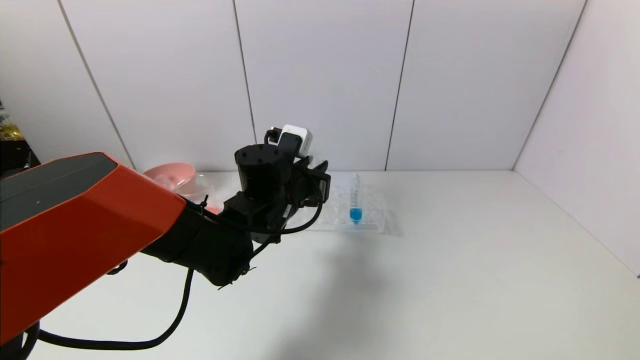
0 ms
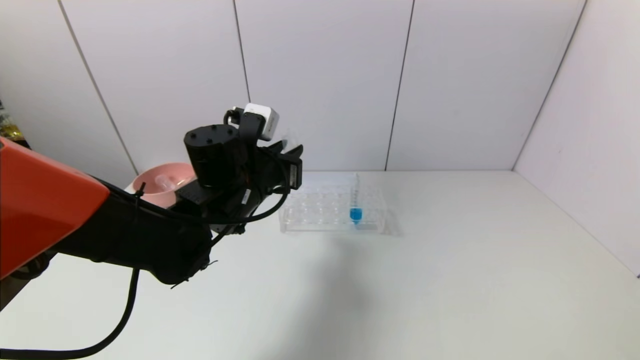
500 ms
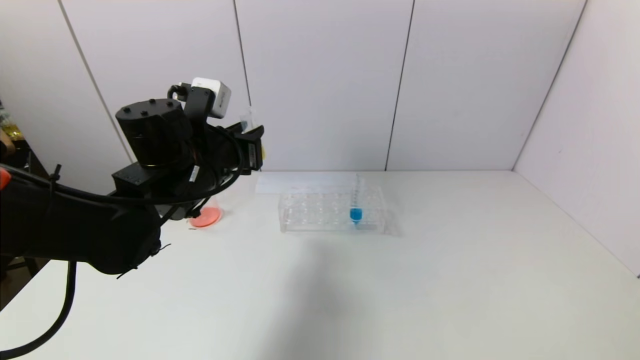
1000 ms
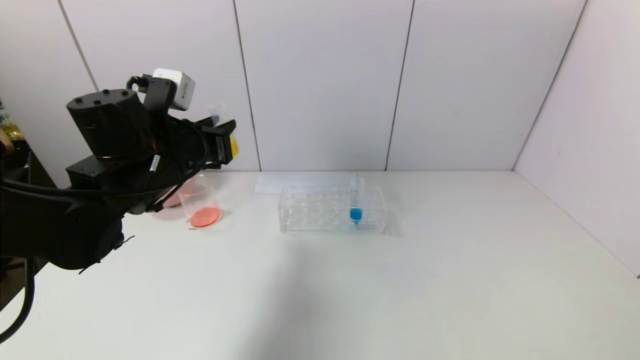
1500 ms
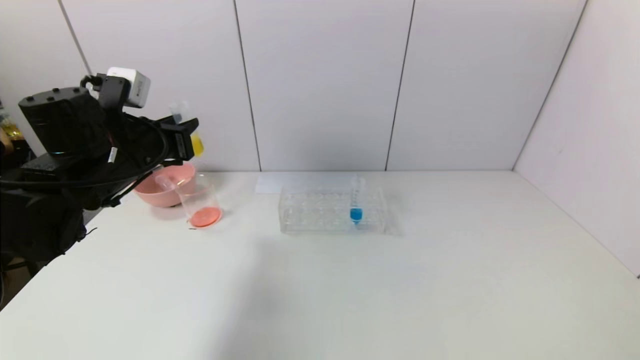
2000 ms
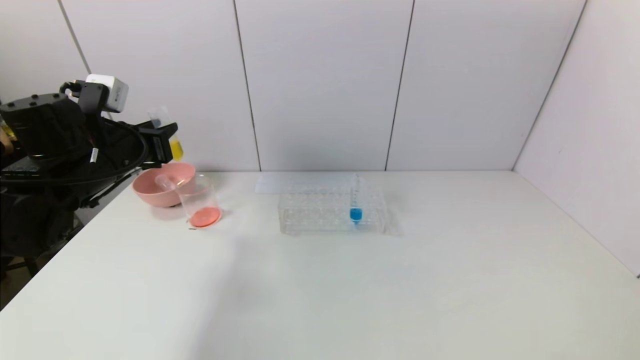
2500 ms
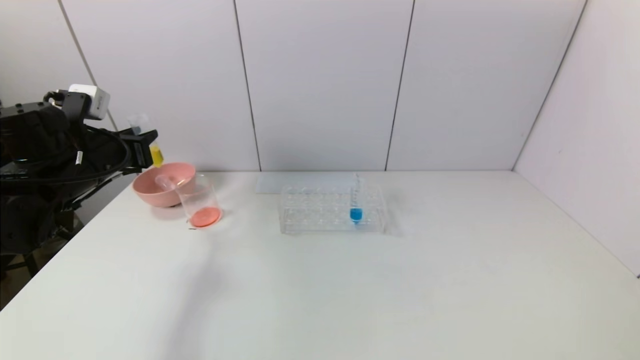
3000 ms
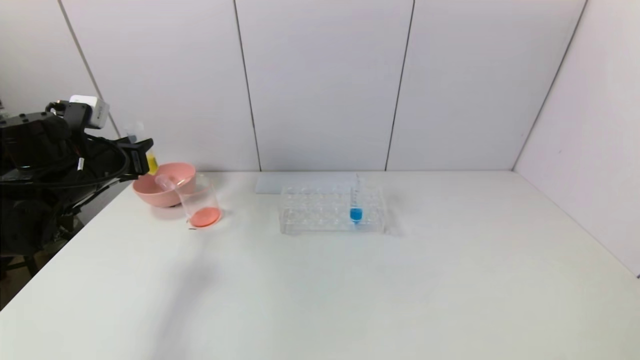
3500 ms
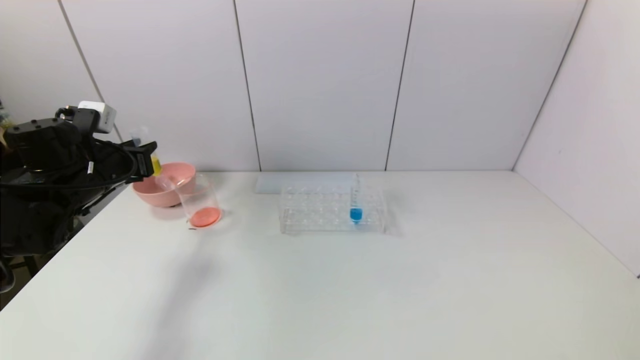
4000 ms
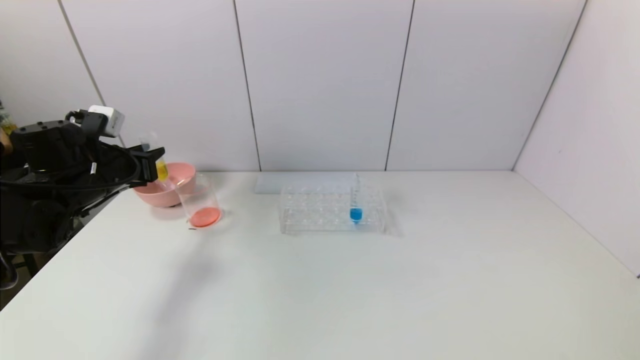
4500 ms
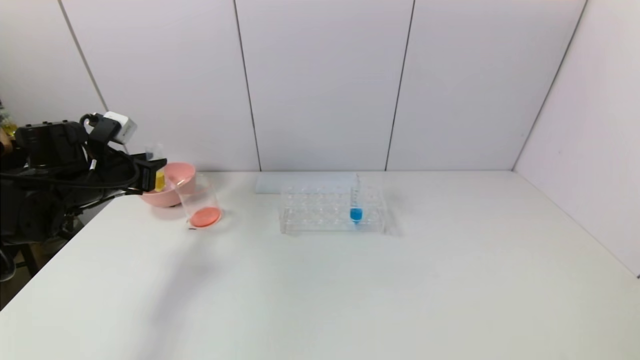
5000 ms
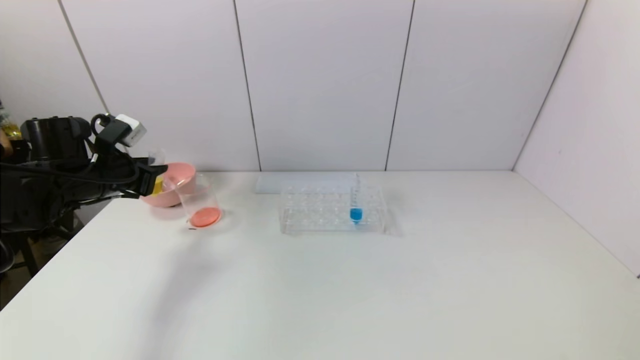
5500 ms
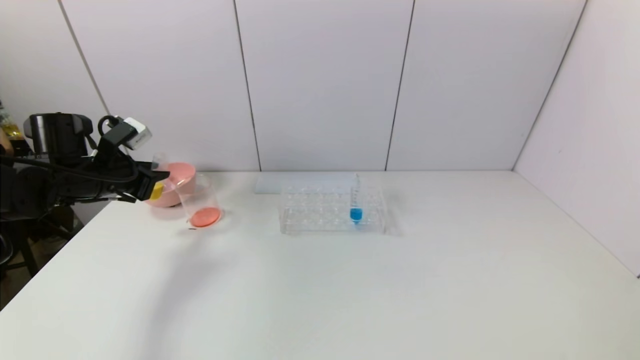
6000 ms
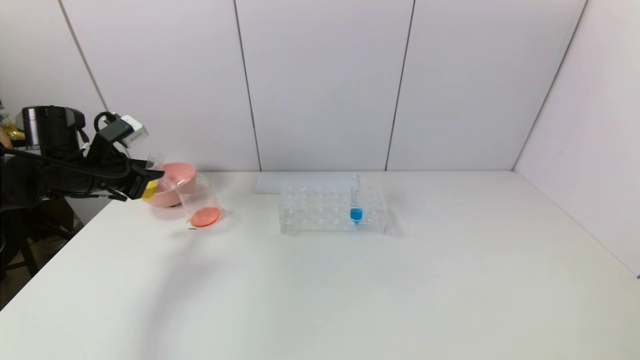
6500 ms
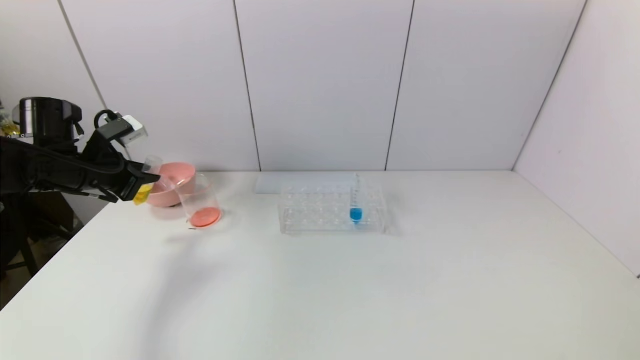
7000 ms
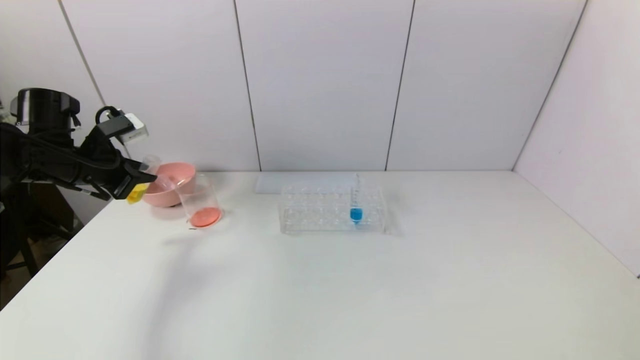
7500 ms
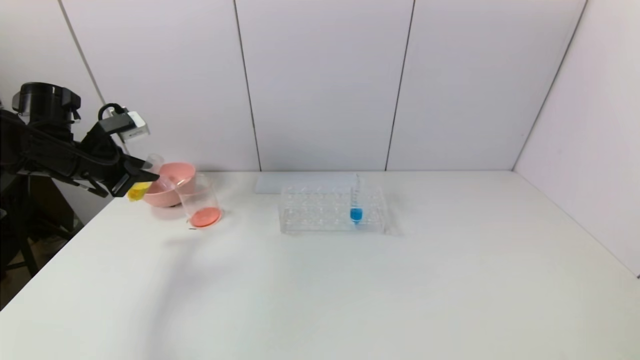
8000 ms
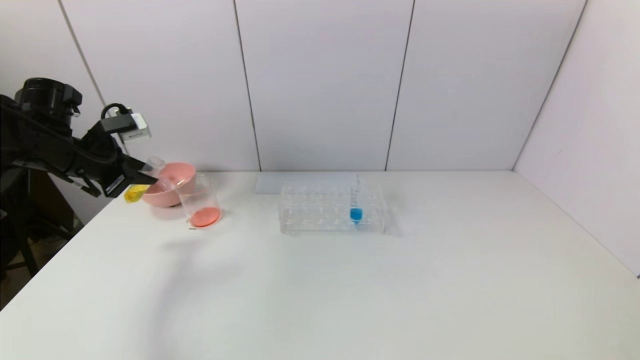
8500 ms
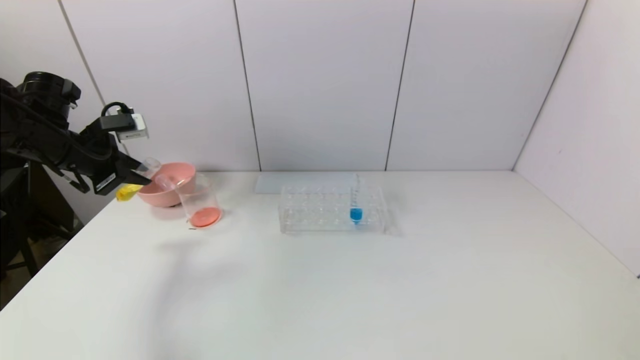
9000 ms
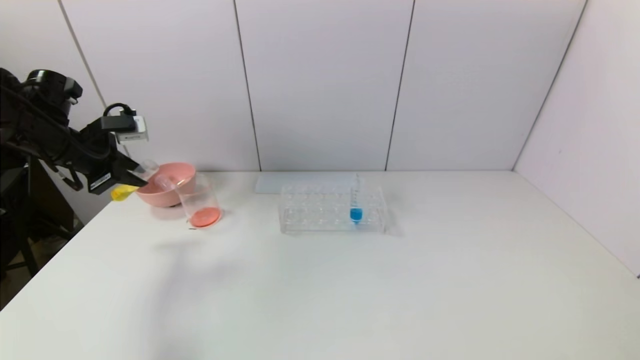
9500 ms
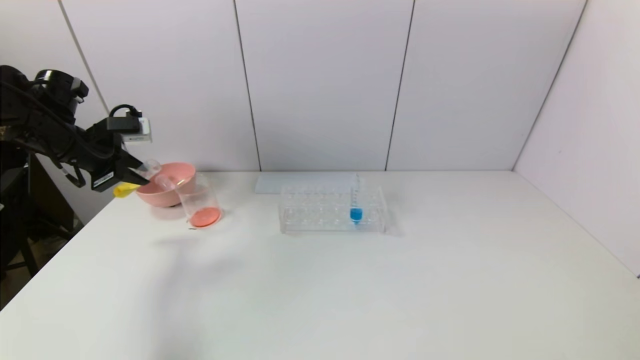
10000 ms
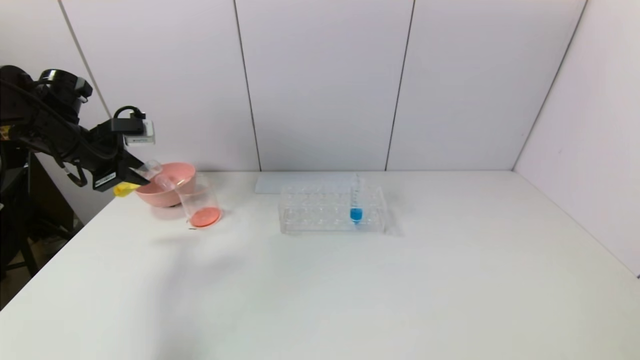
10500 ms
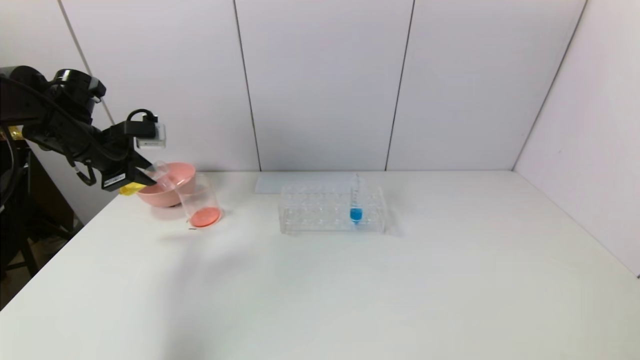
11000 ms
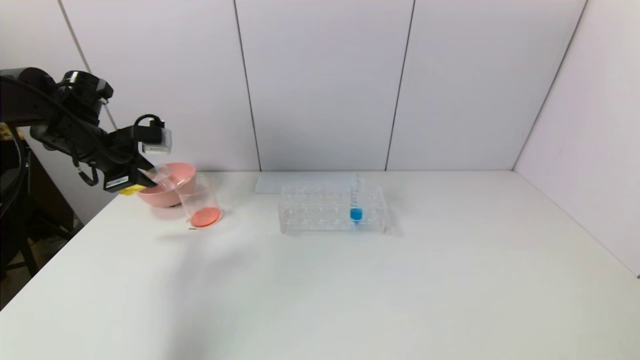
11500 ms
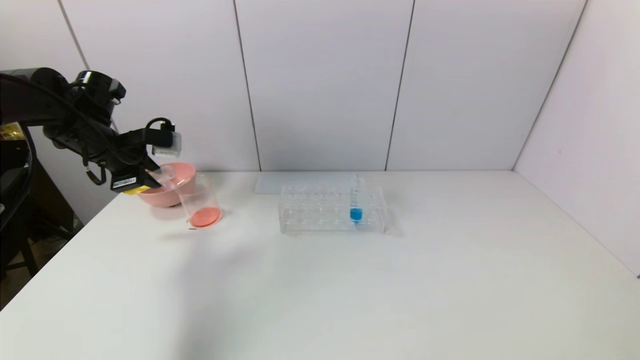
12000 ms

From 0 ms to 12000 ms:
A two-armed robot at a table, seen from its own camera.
Task of the whole recording: pick up the test tube with yellow pigment and the test tube with red pigment by grippers and pour them into the beaker.
From 0 ms to 2000 ms: The left gripper travels to the left by some 20 cm.
From 2000 ms to 4000 ms: The left gripper moves to the left, approximately 10 cm.
From 6000 ms to 8000 ms: The grippers make only small movements.
From 10000 ms to 12000 ms: The grippers move only a little.

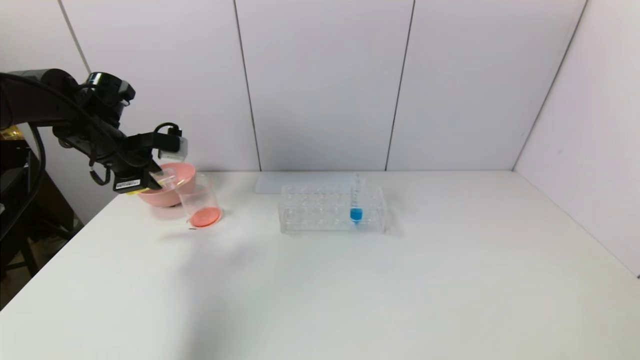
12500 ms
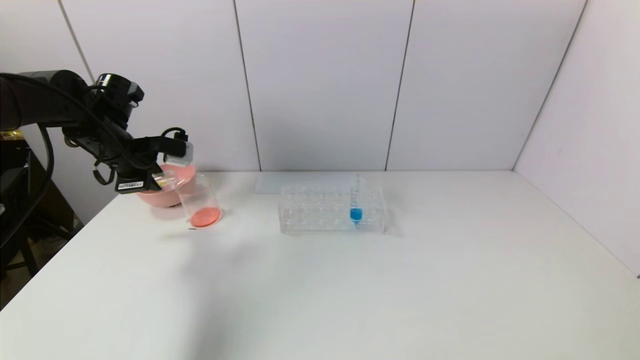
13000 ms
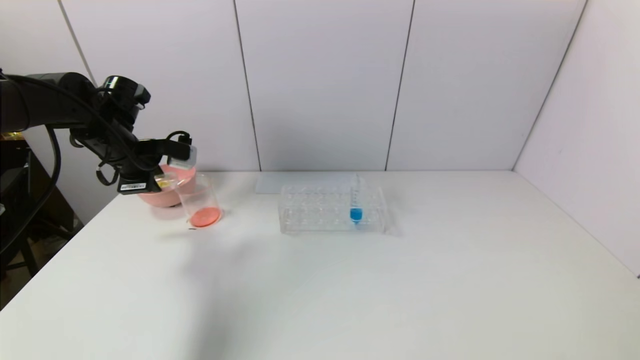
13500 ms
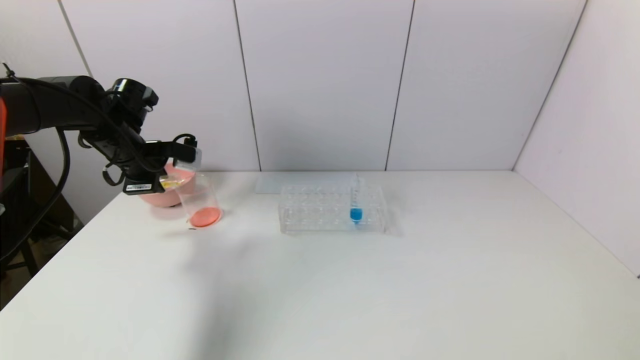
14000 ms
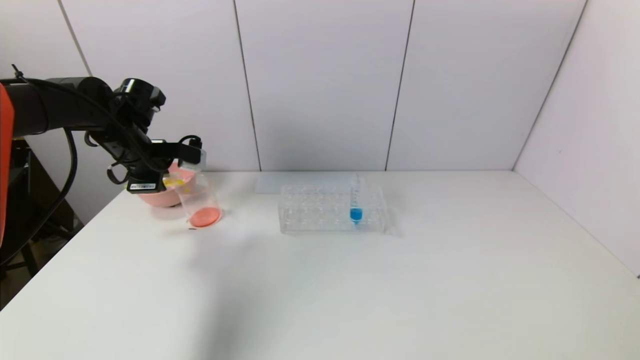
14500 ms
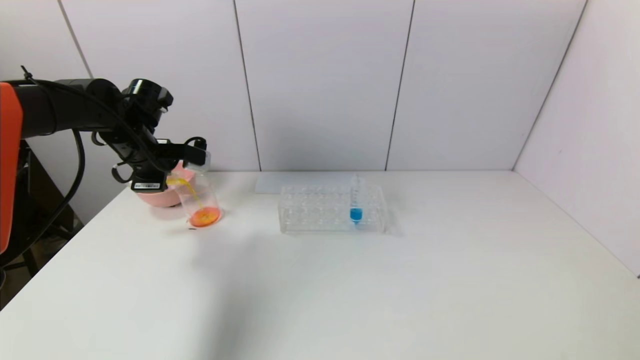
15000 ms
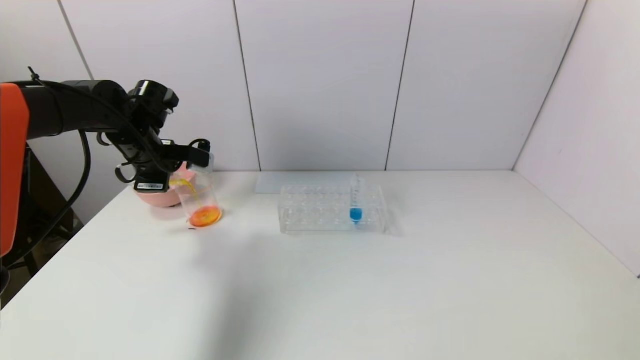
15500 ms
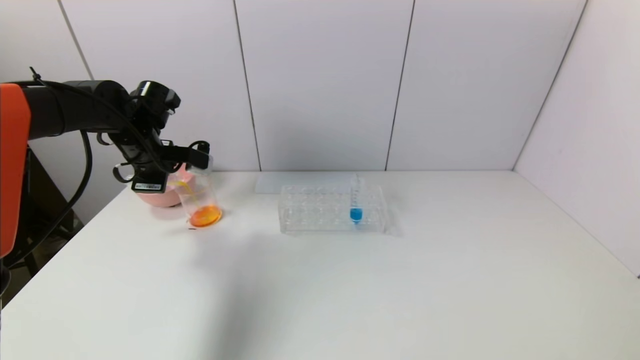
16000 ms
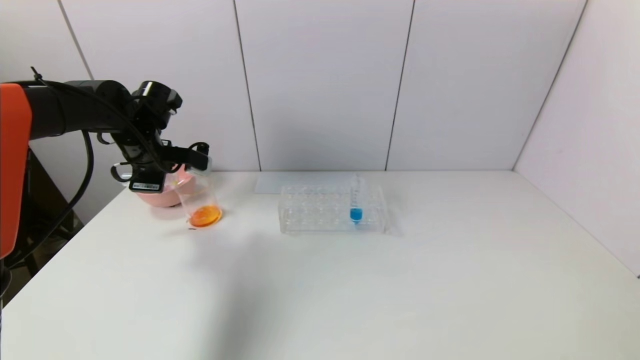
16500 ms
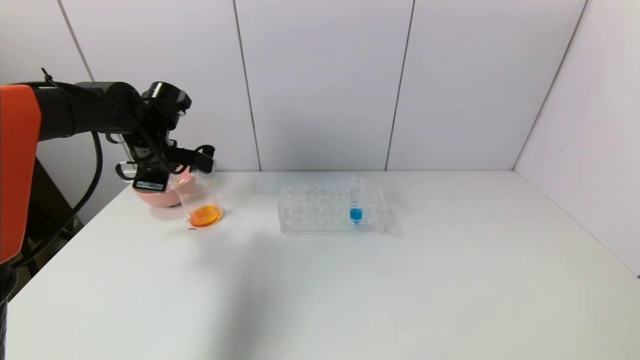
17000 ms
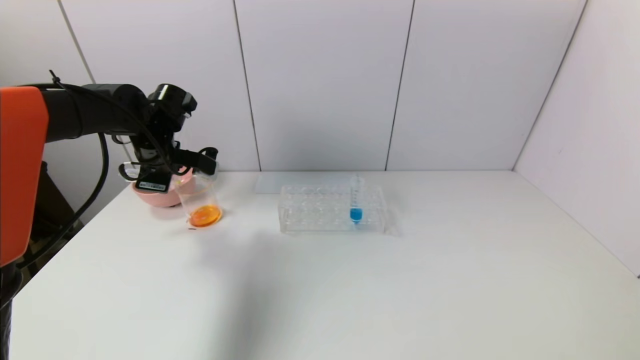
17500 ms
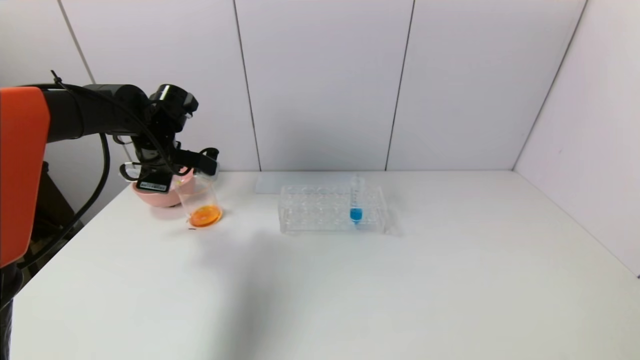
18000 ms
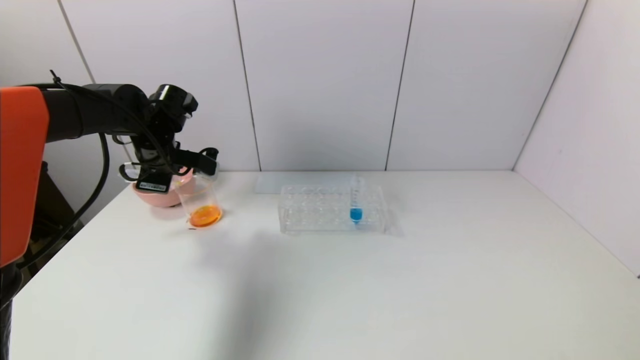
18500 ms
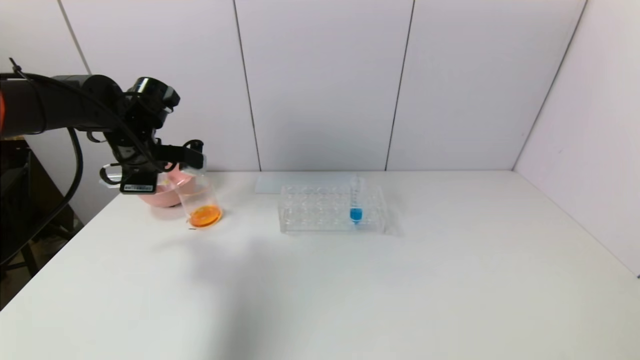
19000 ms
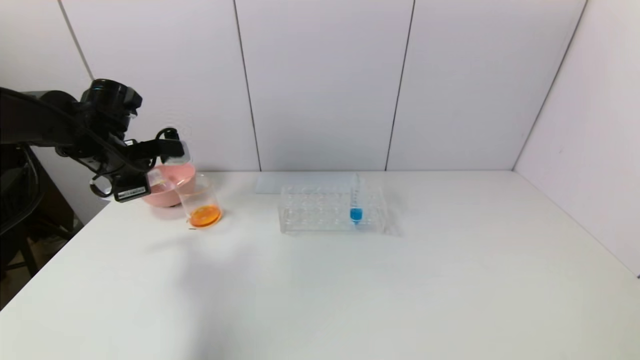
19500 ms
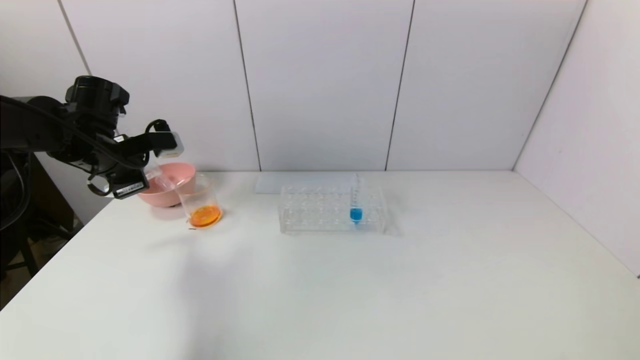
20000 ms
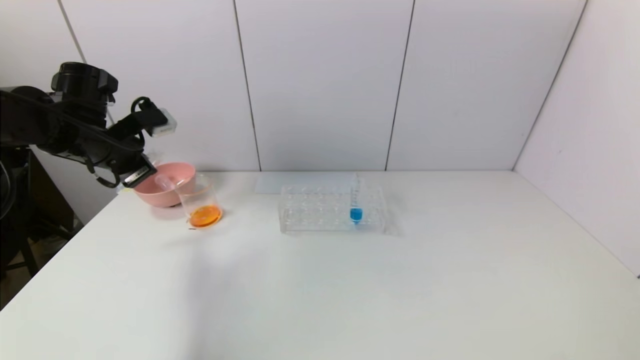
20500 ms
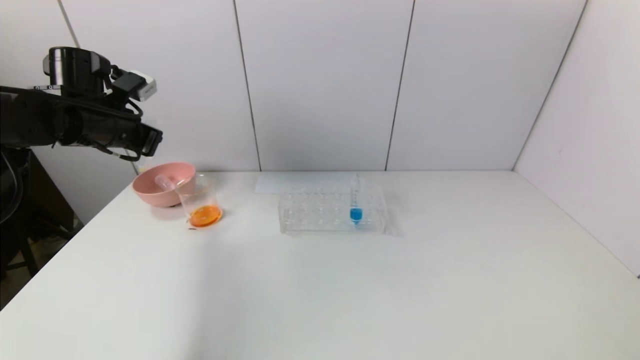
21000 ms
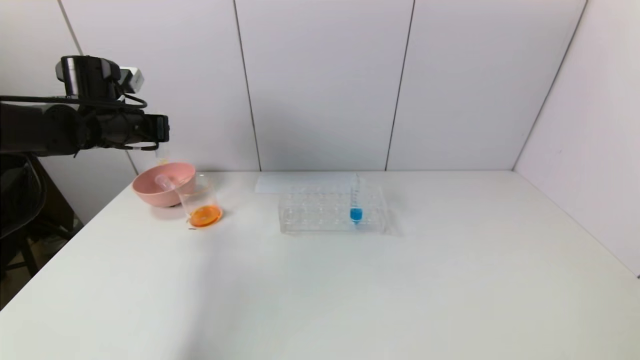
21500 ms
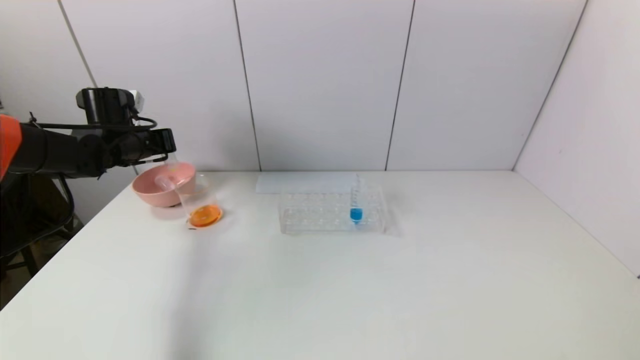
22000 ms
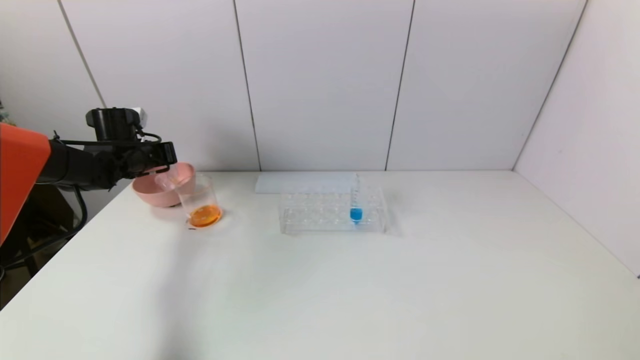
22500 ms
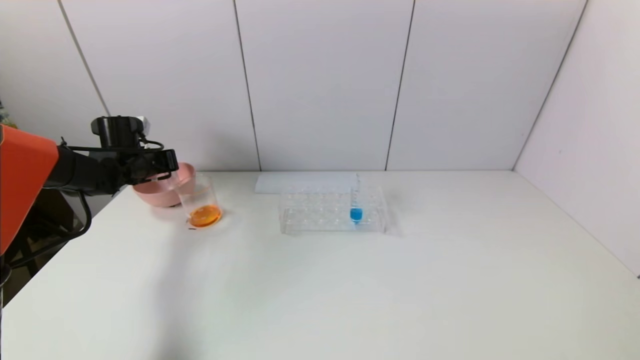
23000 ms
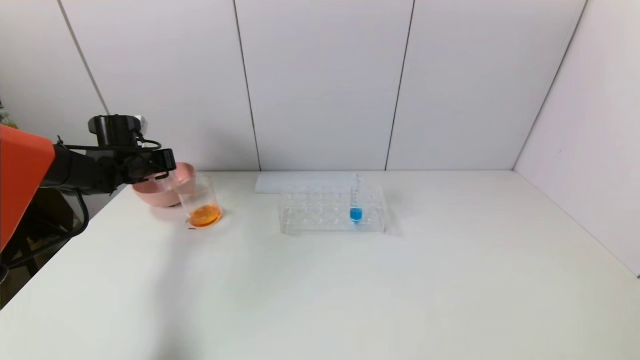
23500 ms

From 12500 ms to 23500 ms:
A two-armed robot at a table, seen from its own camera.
Task of the whole recording: pick up the test tube with yellow pigment and the test tube with red pigment by grippers and pour them into the beaker.
Step, from 12500 ms to 16500 ms: Pour the yellow reagent into the graduated cylinder with the left gripper.
From 12500 ms to 16000 ms: There are only small adjustments of the grippers.
From 16000 ms to 18000 ms: There are only small adjustments of the grippers.
From 18000 ms to 20000 ms: The left gripper shifts some 5 cm to the left.
From 21500 ms to 23500 ms: The left gripper is displaced downward and forward by some 10 cm.
